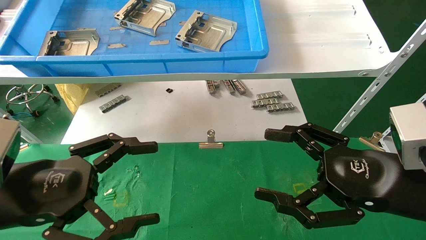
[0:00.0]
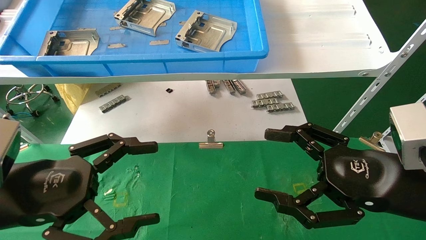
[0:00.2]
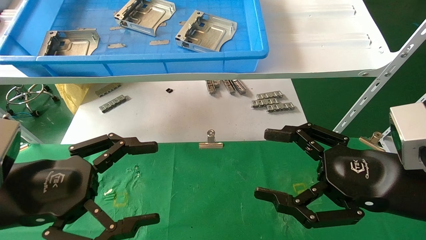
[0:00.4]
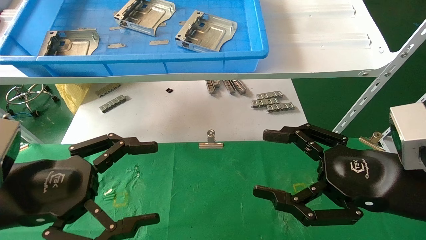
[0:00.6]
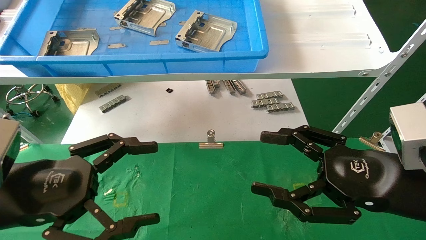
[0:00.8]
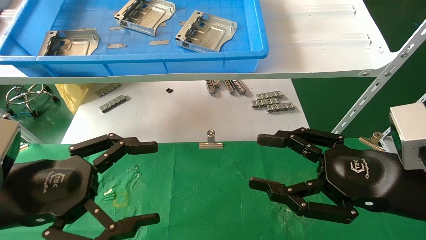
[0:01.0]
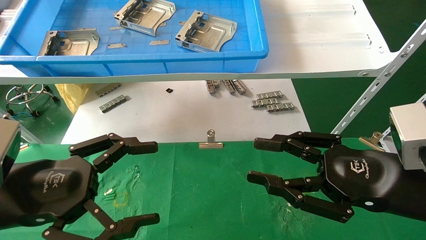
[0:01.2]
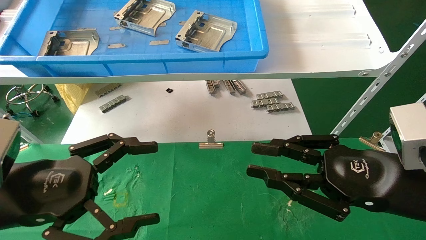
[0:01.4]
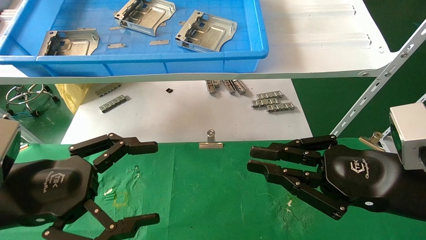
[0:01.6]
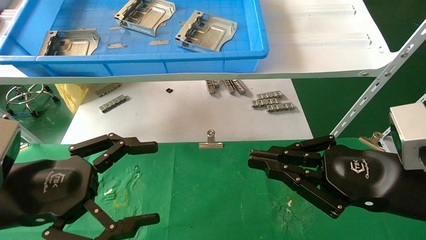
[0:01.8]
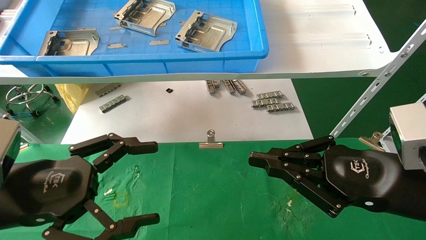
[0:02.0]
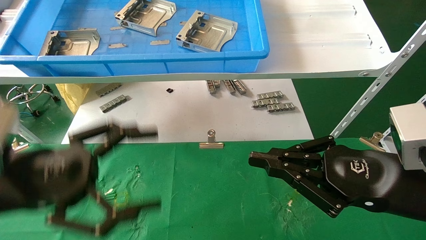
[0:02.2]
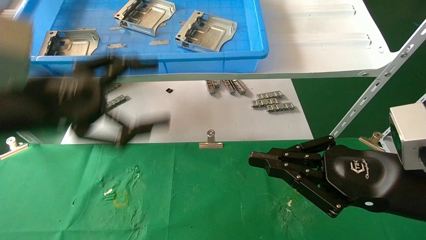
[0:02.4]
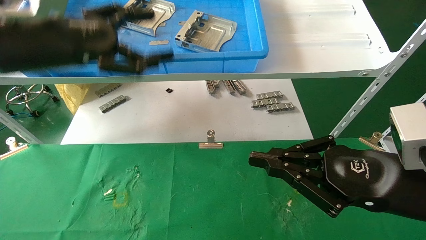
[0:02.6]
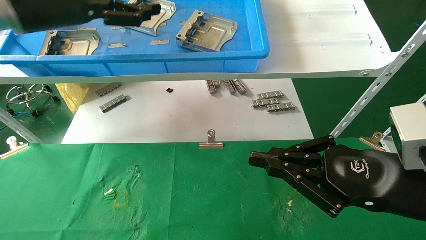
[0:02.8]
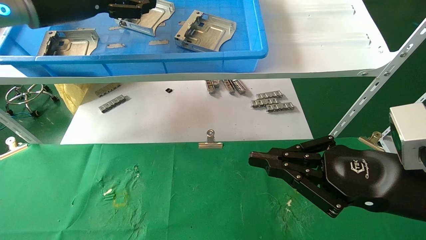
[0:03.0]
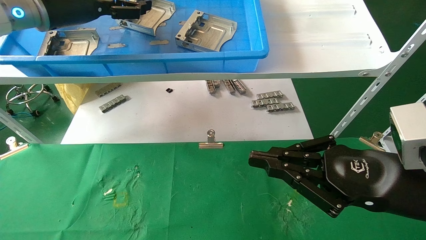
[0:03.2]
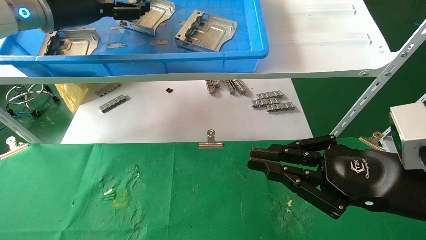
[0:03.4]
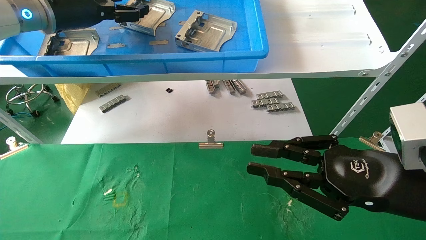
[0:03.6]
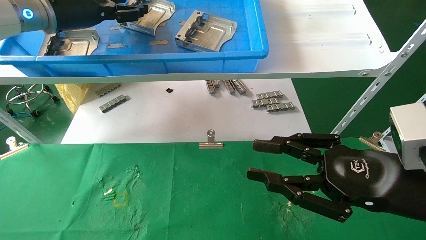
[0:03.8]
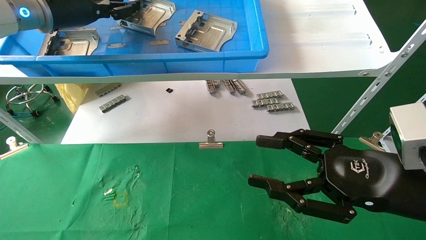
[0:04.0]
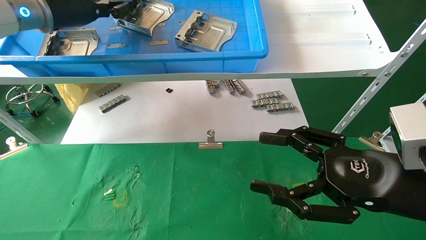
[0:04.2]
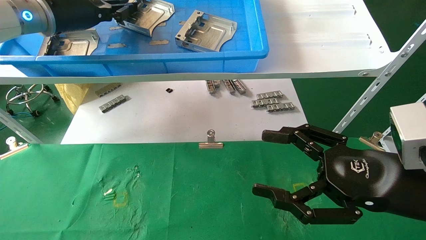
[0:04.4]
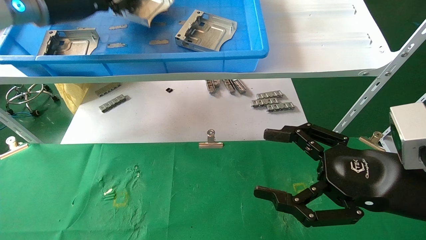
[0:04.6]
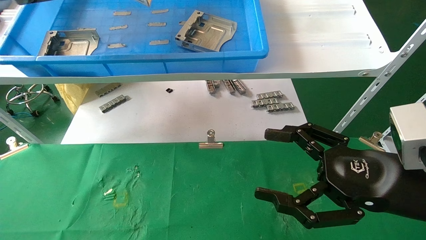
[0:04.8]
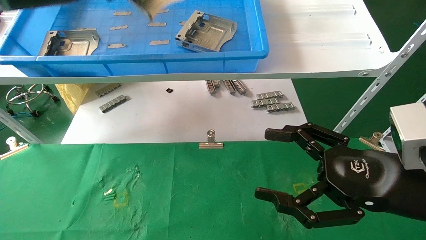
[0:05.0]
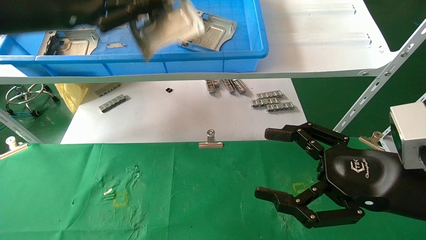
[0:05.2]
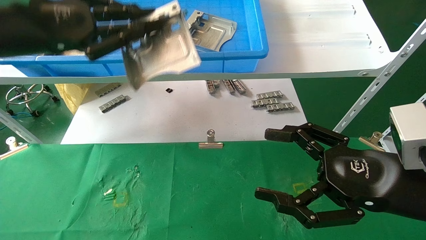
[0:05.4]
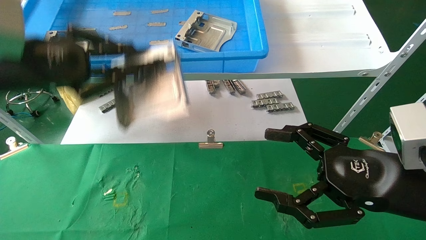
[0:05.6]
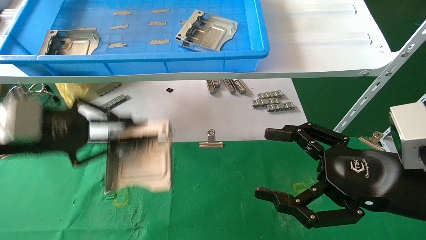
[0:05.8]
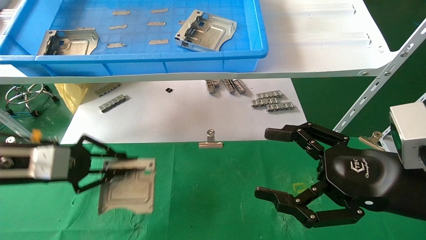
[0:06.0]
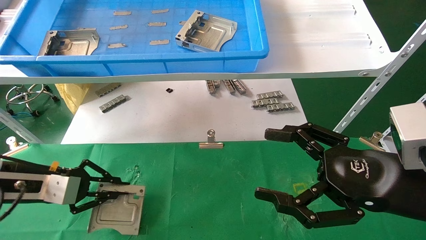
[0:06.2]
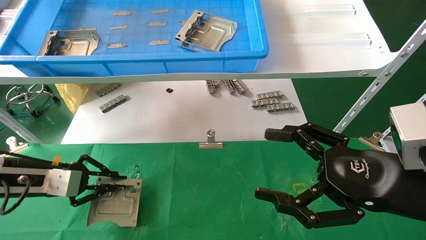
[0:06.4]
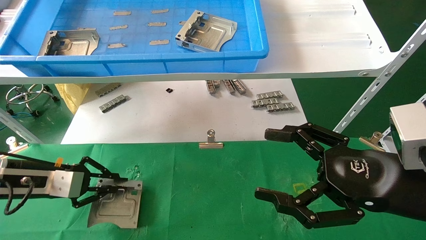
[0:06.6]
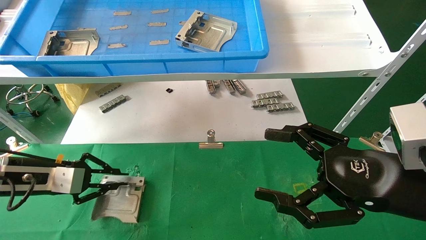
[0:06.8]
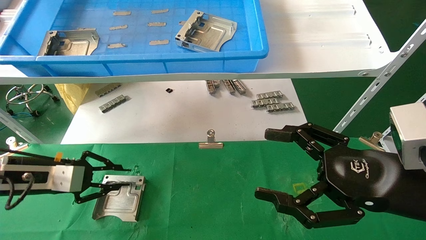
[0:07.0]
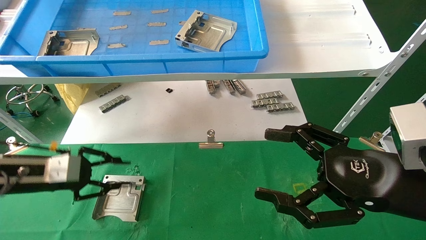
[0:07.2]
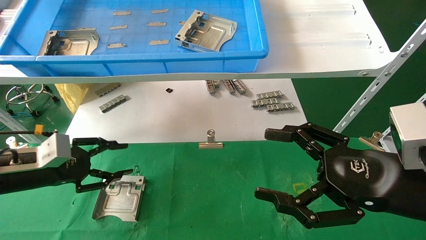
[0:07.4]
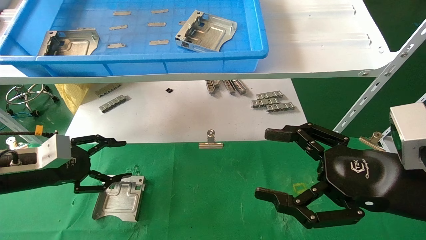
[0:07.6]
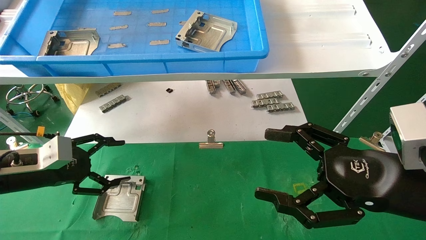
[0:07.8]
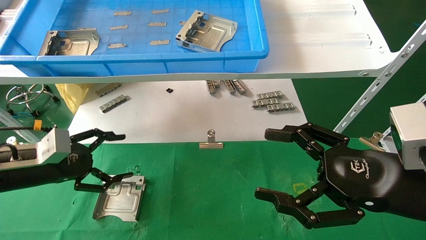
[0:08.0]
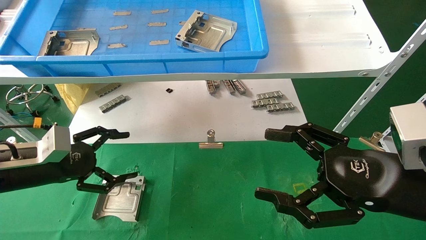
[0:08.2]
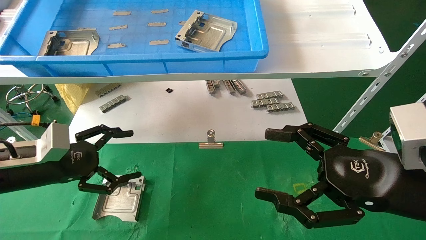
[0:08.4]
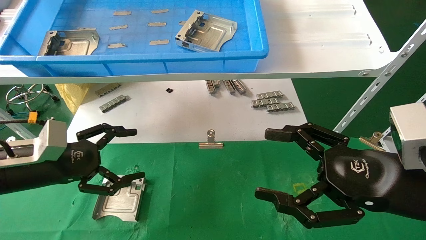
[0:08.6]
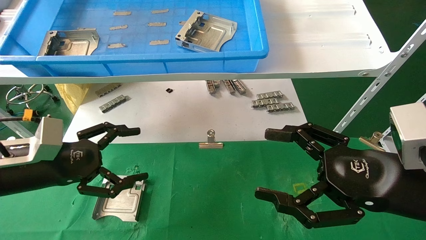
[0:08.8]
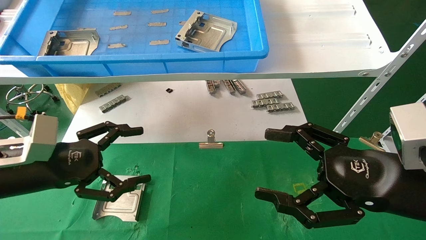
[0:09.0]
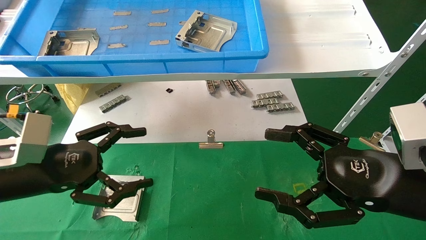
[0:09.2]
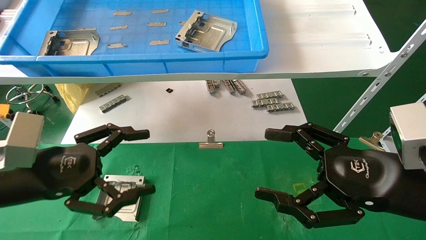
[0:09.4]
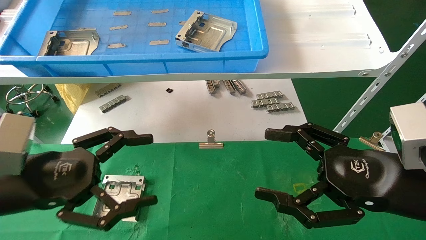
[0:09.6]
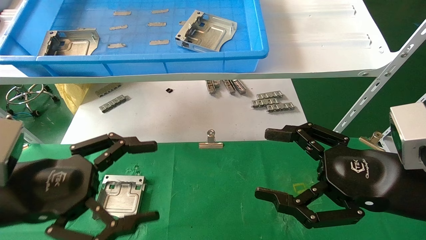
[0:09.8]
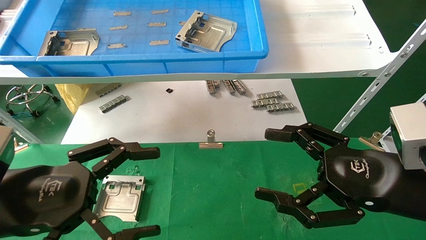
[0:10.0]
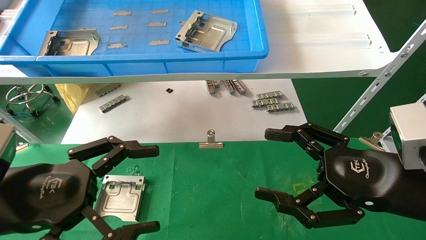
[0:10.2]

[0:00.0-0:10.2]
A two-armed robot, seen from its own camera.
Task of the whole recording: use the mechanical arm to pick up the parts and place them on the table.
Step, 0:01.8 to 0:05.0: Pick up the hard drive bracket from the feeding area.
Step, 0:05.2 to 0:08.2: Place the hard drive bracket into the box.
0:00.0 to 0:01.4: The right gripper closes.
0:01.4 to 0:03.0: The right gripper closes up, while the left gripper heads upward and forward, covering some 30 cm.
0:03.0 to 0:04.4: The left gripper closes. The right gripper opens.
0:04.4 to 0:05.8: The left gripper goes some 20 cm downward and backward.
0:05.8 to 0:07.2: The left gripper goes some 10 cm downward.
0:07.2 to 0:08.8: The left gripper moves some 5 cm, and opens up.
0:08.8 to 0:10.2: The left gripper goes some 10 cm backward and to the right.

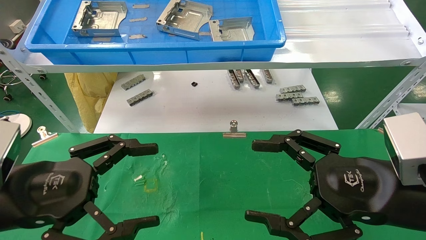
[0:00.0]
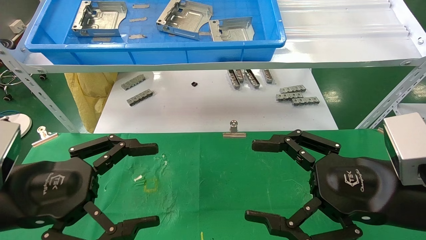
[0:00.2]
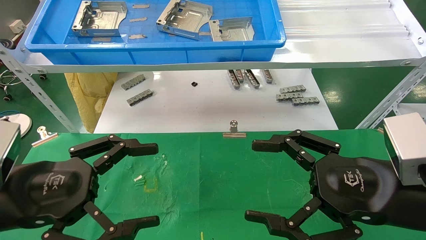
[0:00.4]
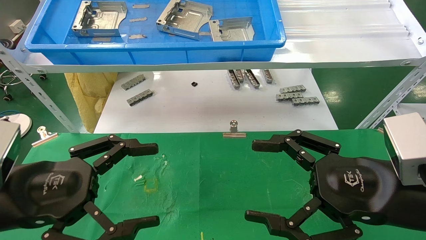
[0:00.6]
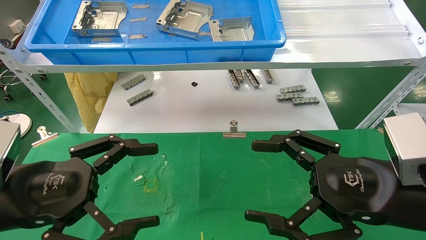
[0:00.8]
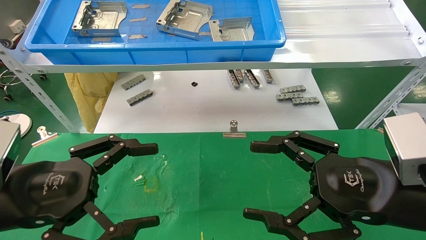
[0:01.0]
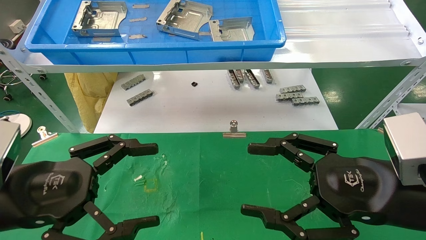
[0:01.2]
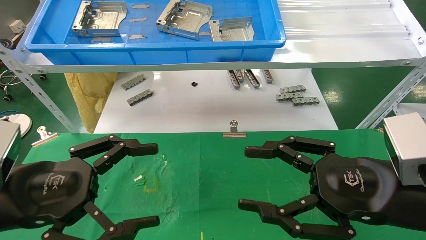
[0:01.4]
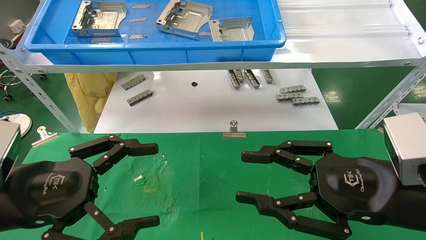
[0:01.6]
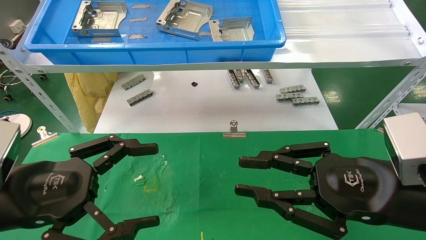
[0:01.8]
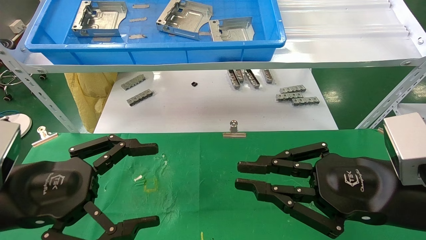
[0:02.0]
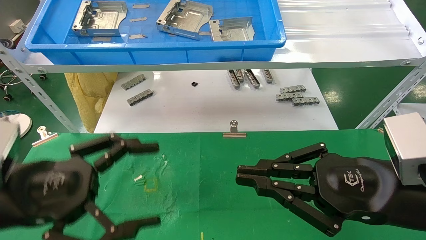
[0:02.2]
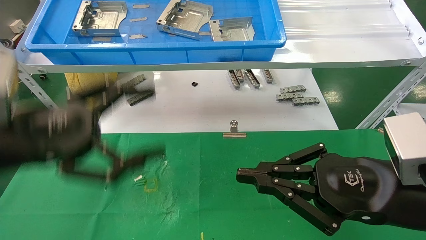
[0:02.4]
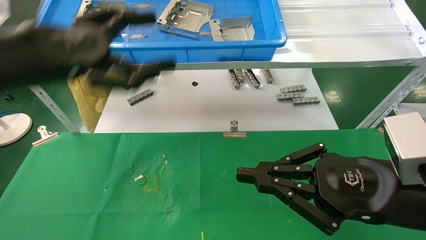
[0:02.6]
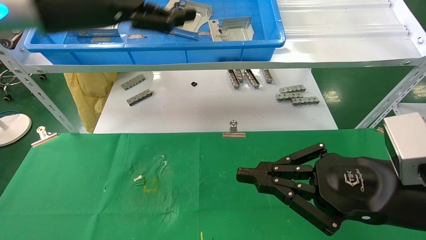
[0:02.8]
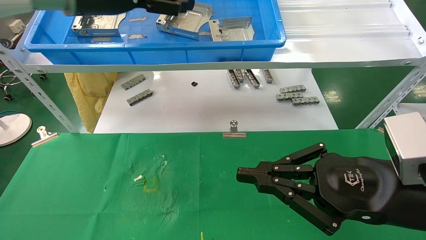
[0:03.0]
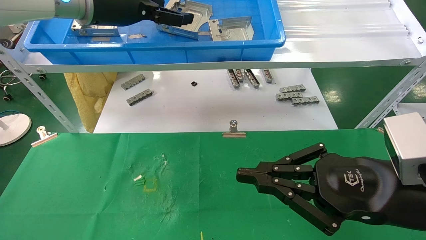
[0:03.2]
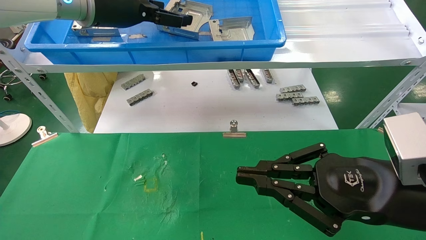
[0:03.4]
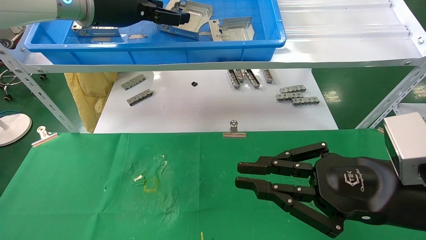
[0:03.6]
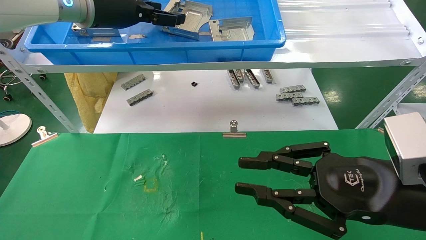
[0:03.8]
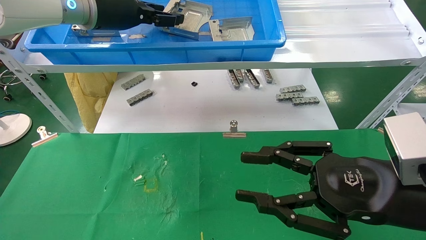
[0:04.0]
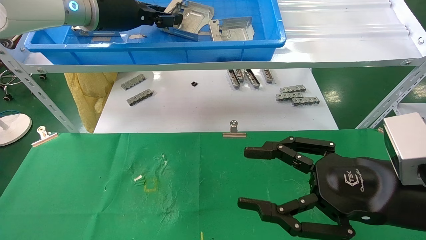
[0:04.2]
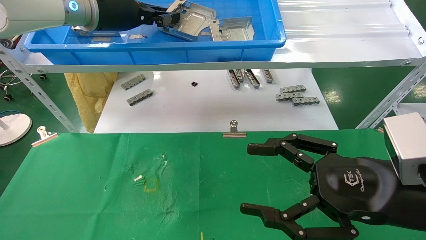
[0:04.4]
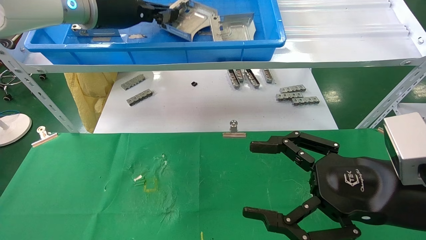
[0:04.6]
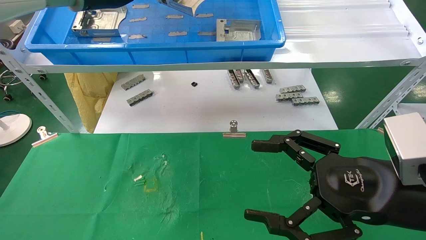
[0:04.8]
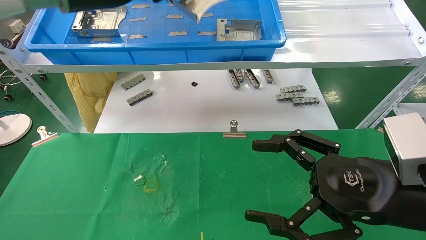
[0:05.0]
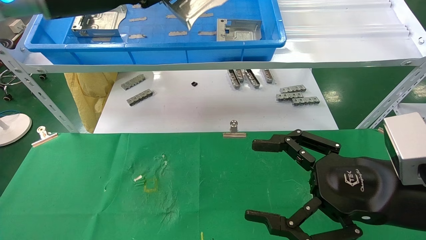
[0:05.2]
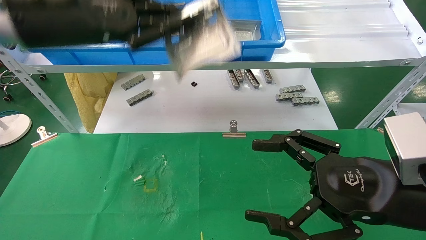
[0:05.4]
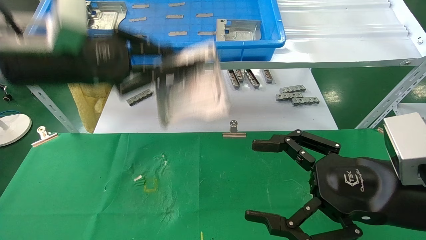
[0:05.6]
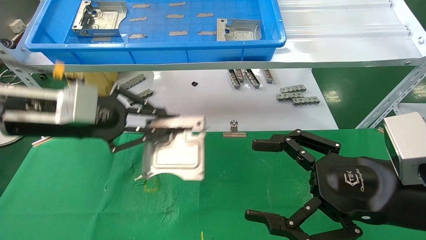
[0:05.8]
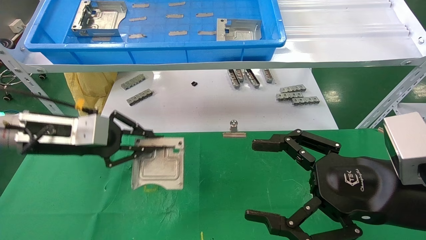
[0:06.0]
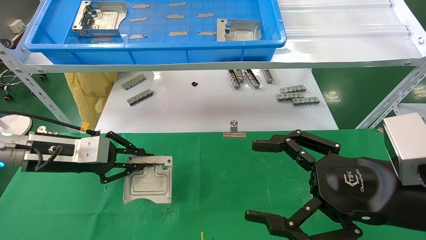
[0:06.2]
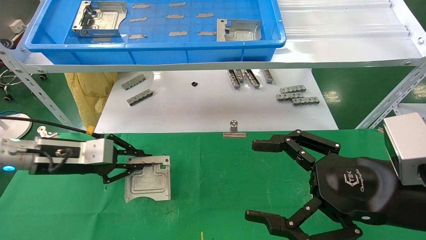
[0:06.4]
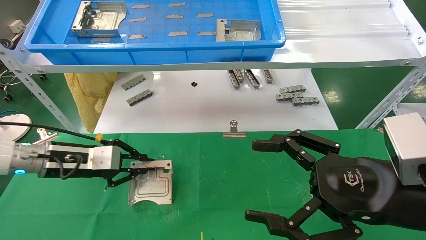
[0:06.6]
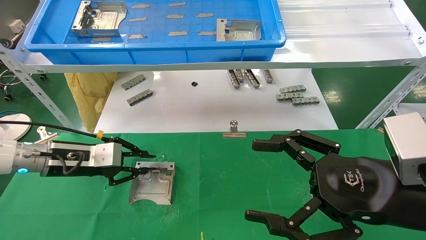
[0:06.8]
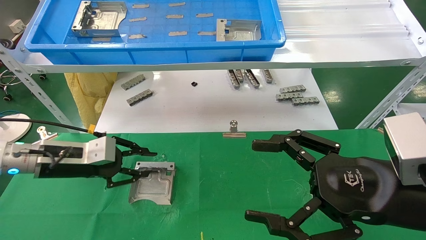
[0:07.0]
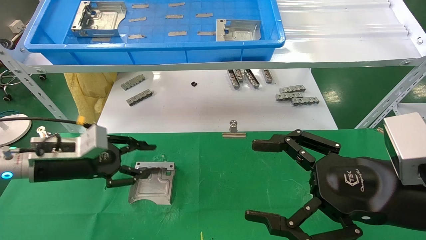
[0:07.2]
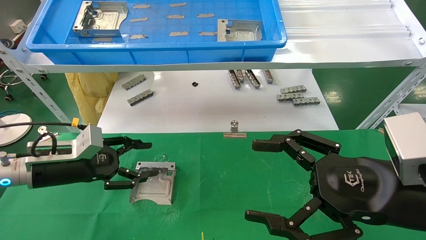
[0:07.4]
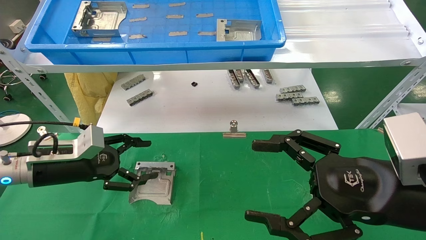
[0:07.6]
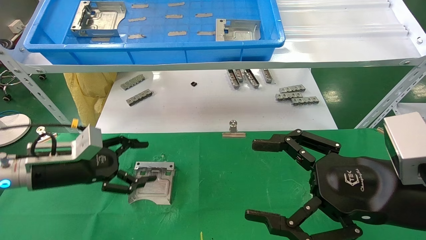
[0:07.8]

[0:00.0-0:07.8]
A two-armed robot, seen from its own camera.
Task of the whole recording: use the mechanical arm to pick up the parts and place them on the table.
Step, 0:02.6 to 0:04.6: Pick up the hard drive bracket from the feeding area.
Step, 0:04.8 to 0:07.0: Place the hard drive bracket into the box.
0:00.0 to 0:01.6: The right gripper closes.
0:01.6 to 0:03.2: The left gripper is displaced upward and forward by roughly 30 cm. The right gripper closes up.
0:03.2 to 0:04.6: The right gripper opens. Meanwhile the left gripper closes.
0:04.6 to 0:06.2: The left gripper travels downward and to the left by roughly 25 cm.
0:06.2 to 0:07.8: The left gripper opens its fingers.
